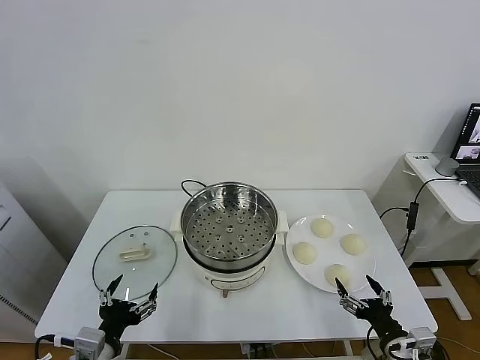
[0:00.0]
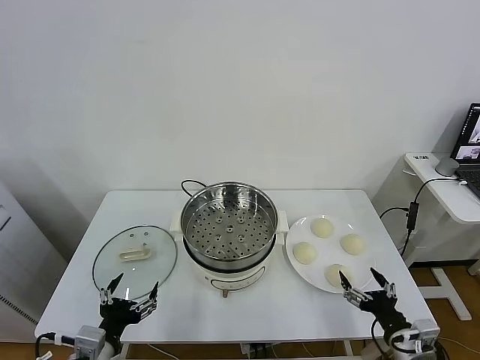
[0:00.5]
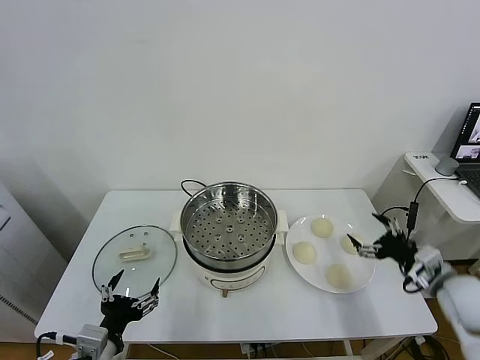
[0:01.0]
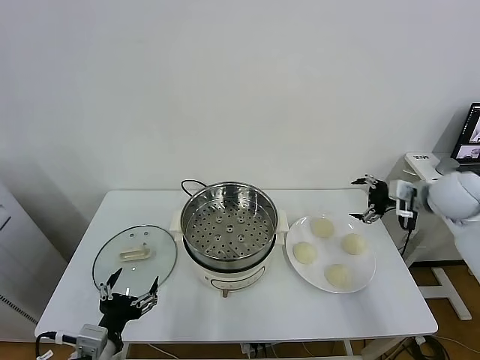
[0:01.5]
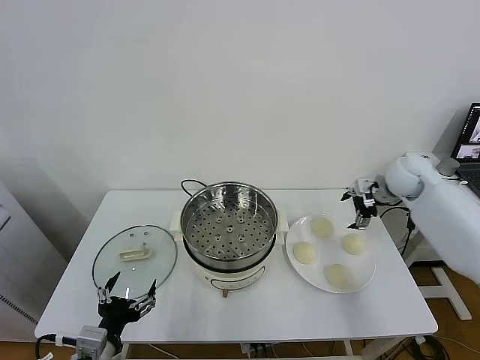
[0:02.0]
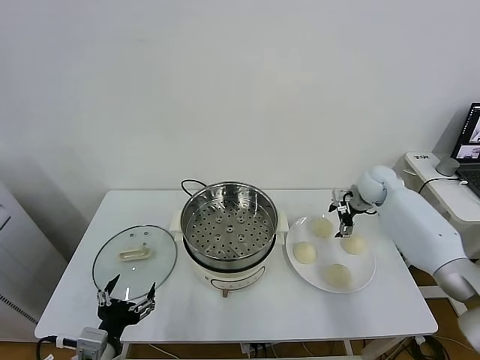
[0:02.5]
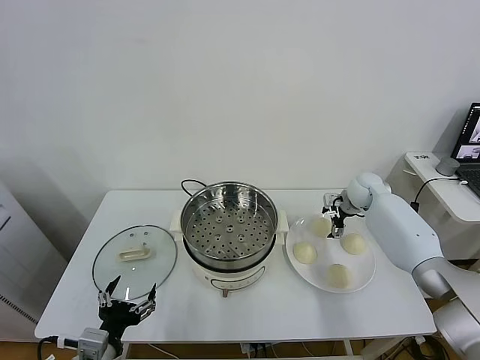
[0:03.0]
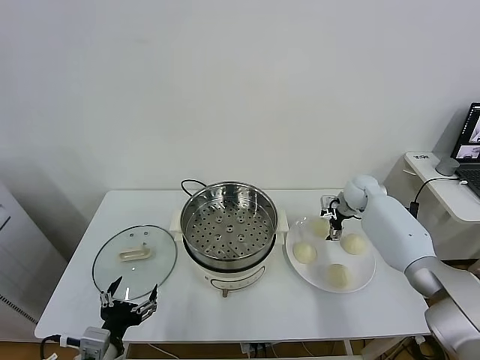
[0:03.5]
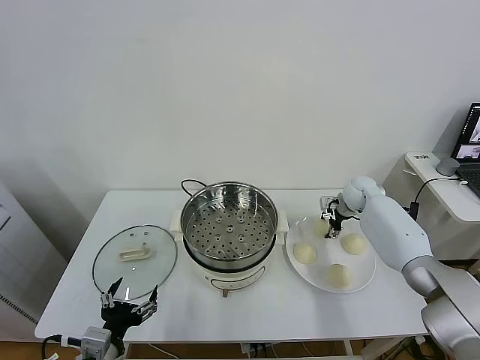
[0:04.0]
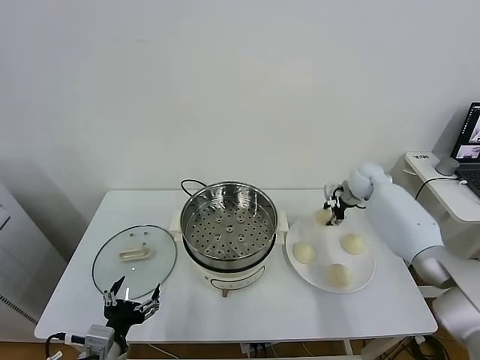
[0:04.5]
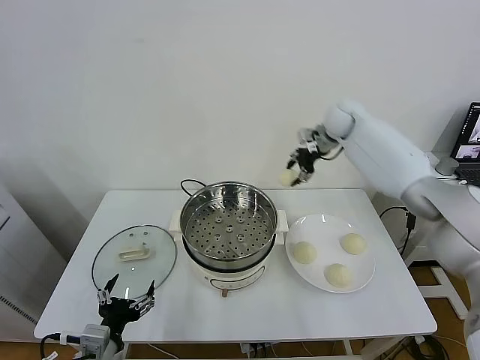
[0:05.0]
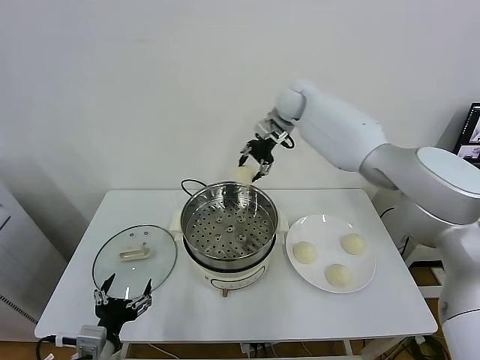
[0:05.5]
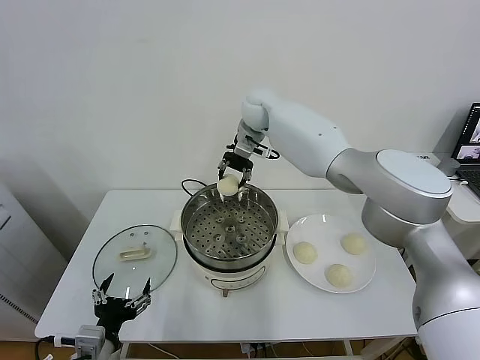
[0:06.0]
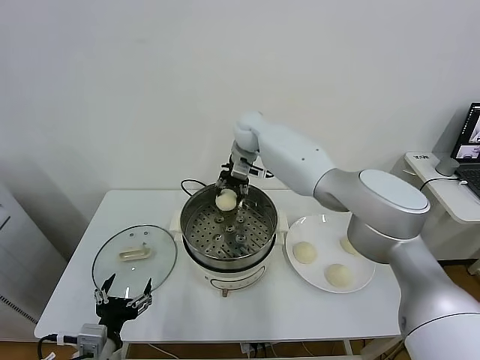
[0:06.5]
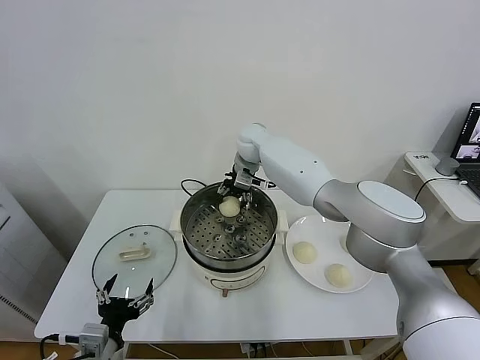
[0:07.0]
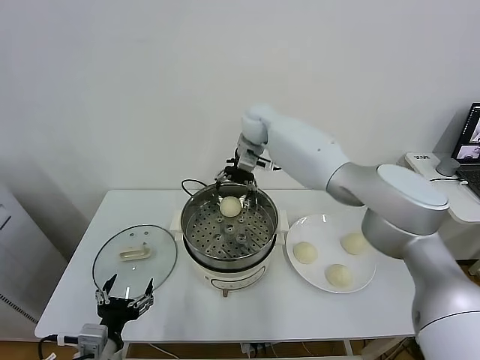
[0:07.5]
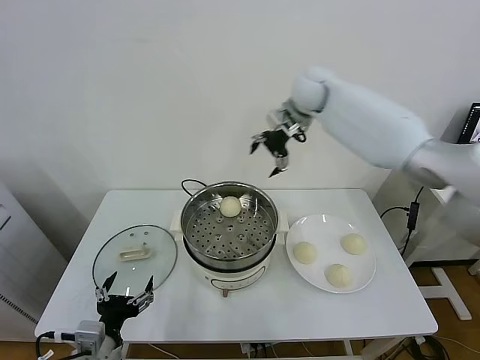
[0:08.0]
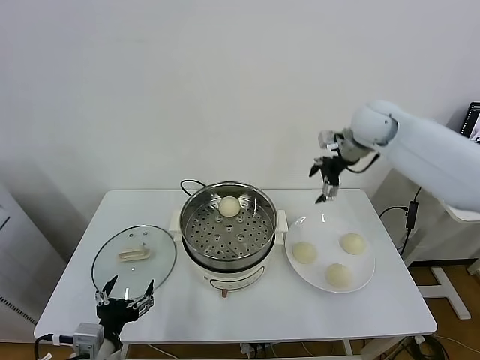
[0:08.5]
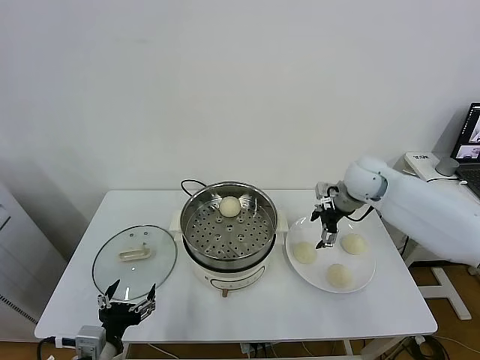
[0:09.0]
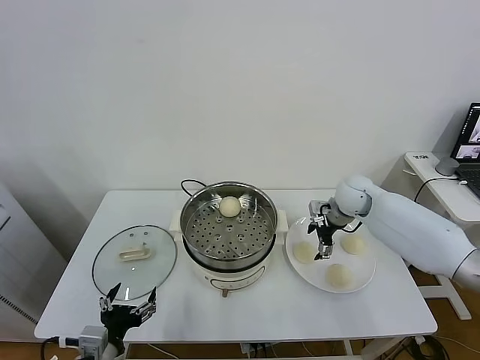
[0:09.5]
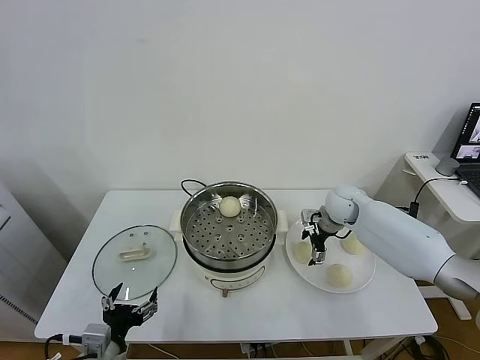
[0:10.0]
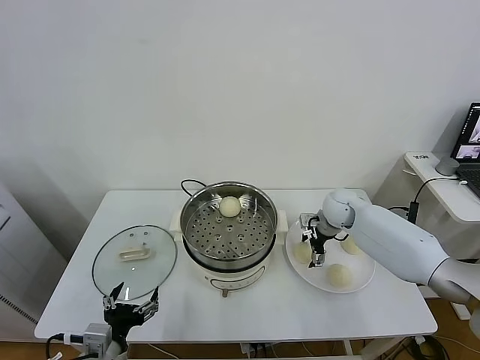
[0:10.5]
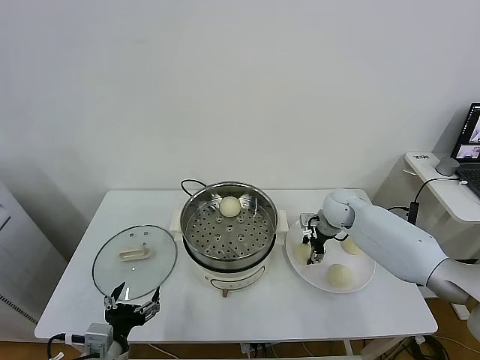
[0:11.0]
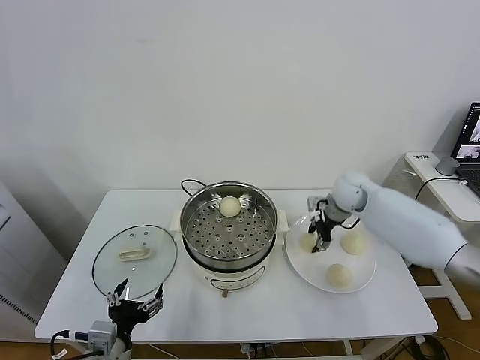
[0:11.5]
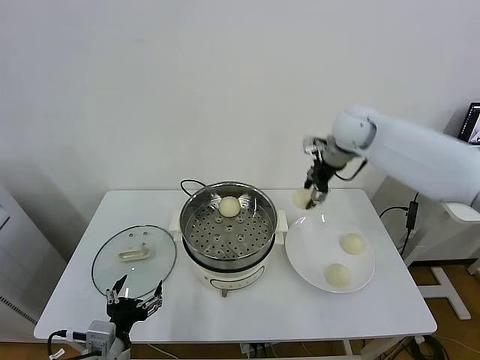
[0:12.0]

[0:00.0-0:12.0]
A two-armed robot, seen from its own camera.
Task of the whole recording: take steamed baozi put them in steamer.
Step, 0.0 to 4.0 s: Grasp the baozi in the plate with right gripper.
Step, 4.5 to 7.0 s: Place the baozi on the steamer with right gripper.
Step, 7.5 to 11.0 s: Grasp the baozi in the plate with right gripper.
2.0 to 4.0 s: The right gripper travels downward by some 10 cm, and closes up.
4.0 to 6.0 s: The right gripper heads to the left and upward, covering roughly 35 cm.
6.0 to 8.0 s: The right gripper is displaced to the right and upward by about 15 cm, and opens its fingers.
8.0 to 10.0 s: The right gripper is displaced downward by roughly 30 cm.
10.0 to 12.0 s: The right gripper shifts some 25 cm upward, and closes.

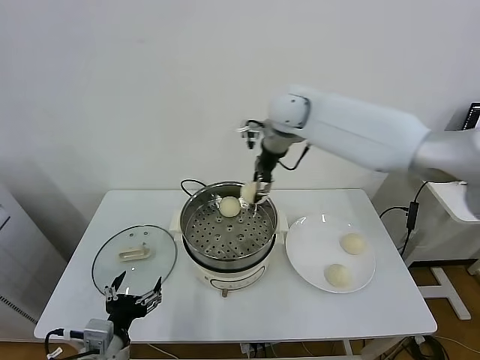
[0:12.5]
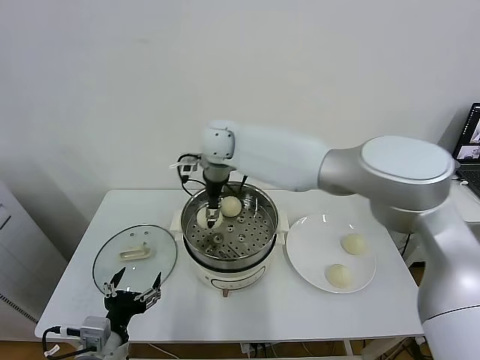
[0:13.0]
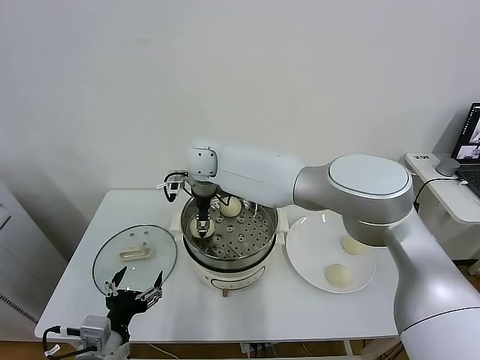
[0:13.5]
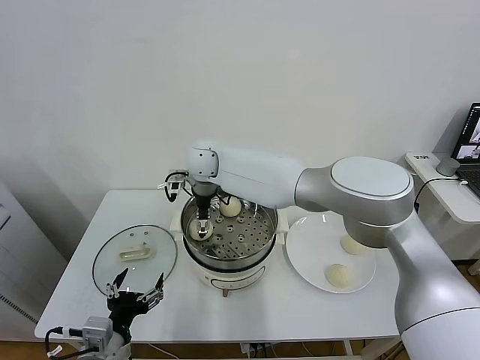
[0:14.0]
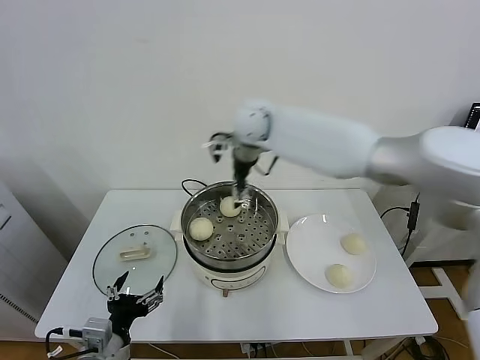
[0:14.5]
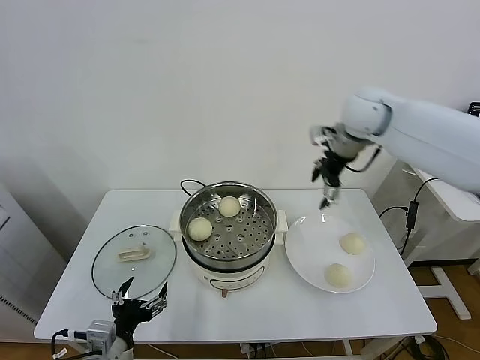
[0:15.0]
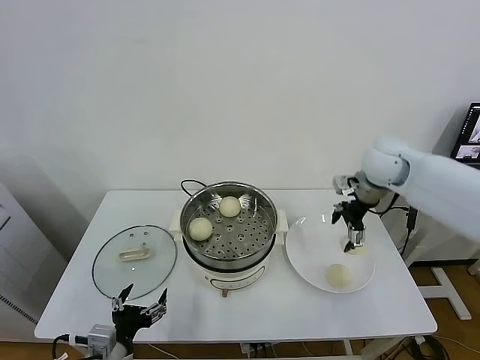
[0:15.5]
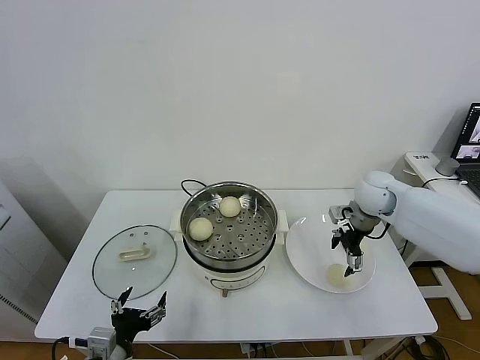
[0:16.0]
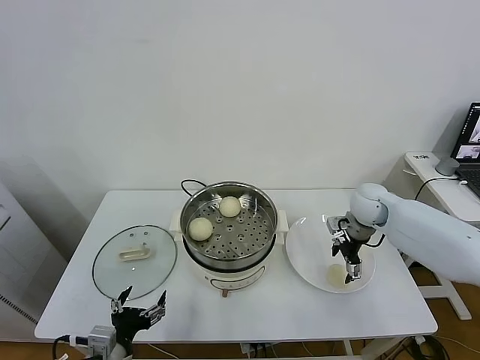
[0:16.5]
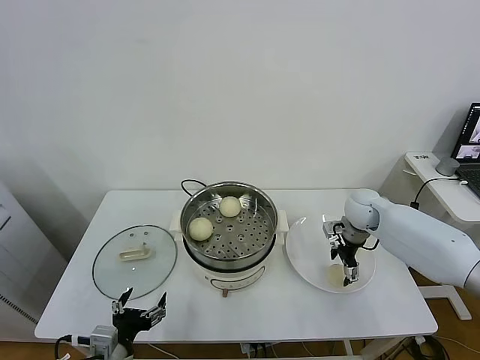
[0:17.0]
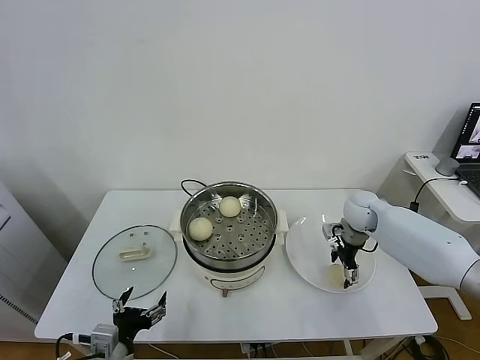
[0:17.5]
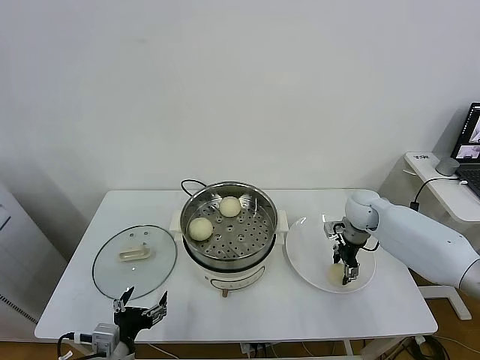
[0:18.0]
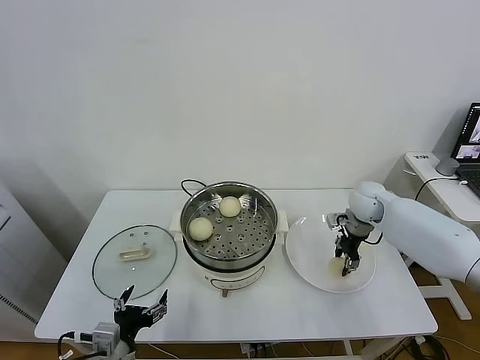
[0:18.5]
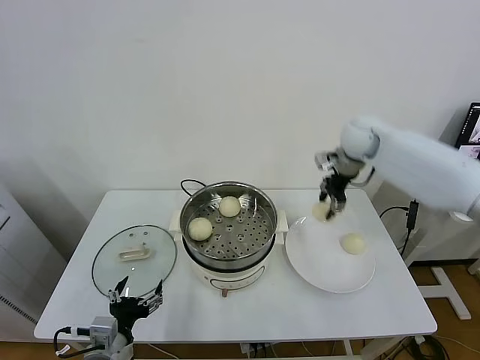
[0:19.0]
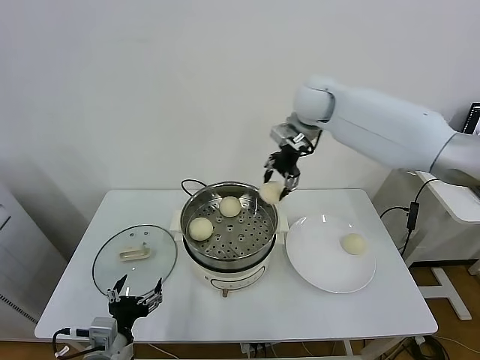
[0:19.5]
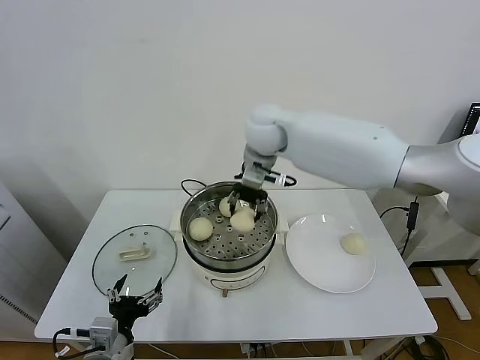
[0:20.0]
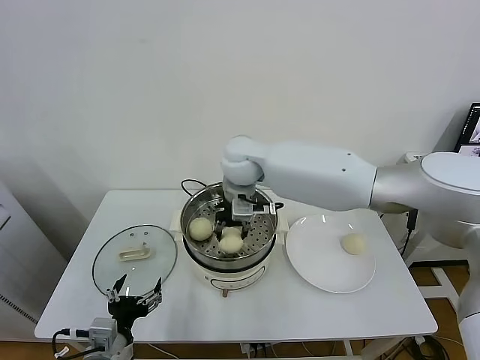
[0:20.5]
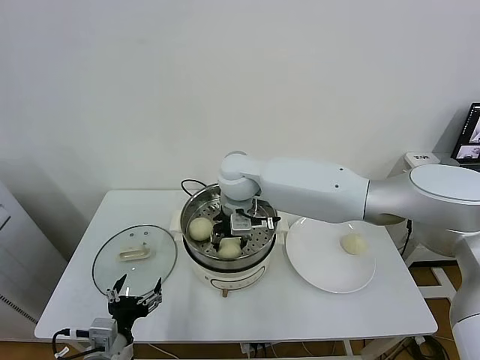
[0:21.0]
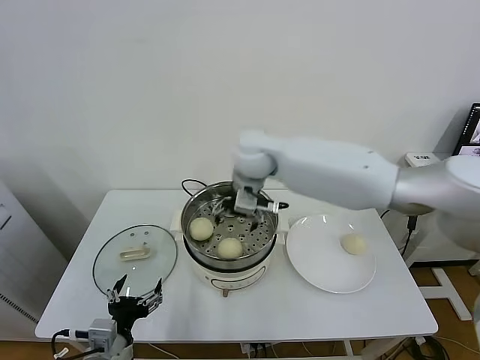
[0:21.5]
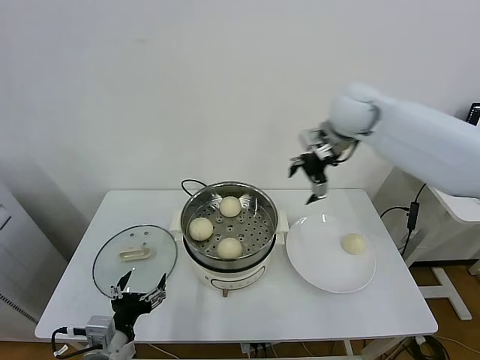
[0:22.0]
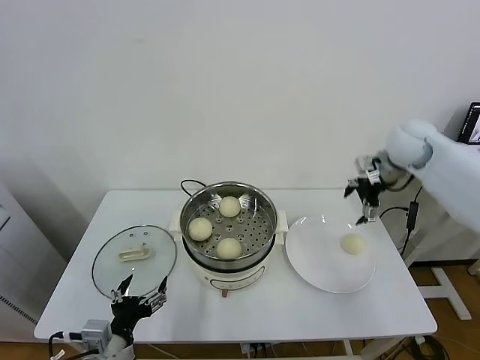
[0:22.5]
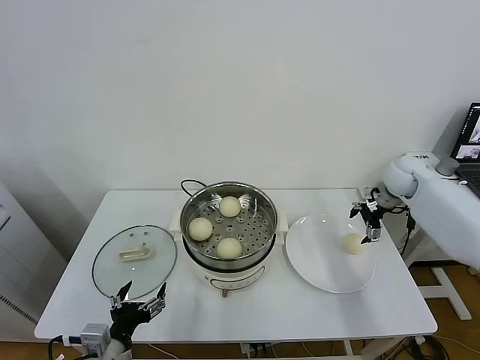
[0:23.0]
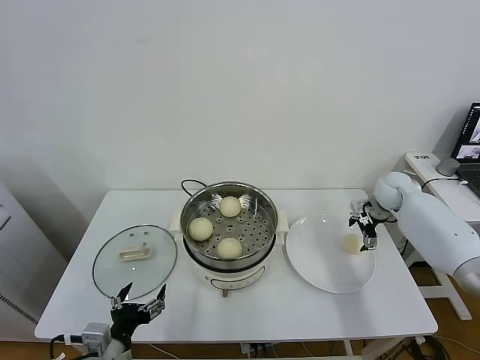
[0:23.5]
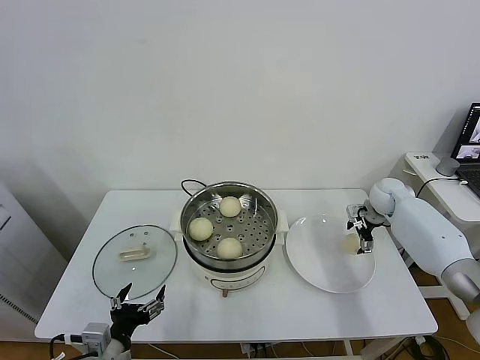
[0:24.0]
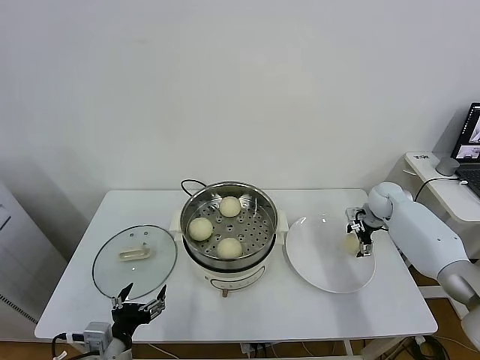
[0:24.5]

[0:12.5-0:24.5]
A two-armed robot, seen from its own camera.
Task of the whole recording: take steamed baozi put them in steamer.
Step, 12.5 to 14.0 s: Place the baozi on the steamer with right gripper.
Step, 14.5 to 18.0 s: Grasp the baozi in the plate with right gripper.
Step, 18.5 to 21.0 s: Place the baozi on the steamer with right gripper.
12.5 to 14.5 s: The right gripper moves about 15 cm to the left and comes back, and opens its fingers.
14.5 to 16.5 s: The right gripper travels to the right and downward by roughly 35 cm.
16.5 to 18.5 s: The right gripper closes up.
18.5 to 20.5 s: The right gripper shifts about 35 cm to the left.
20.5 to 22.5 s: The right gripper heads to the right, covering approximately 40 cm, and opens its fingers.
22.5 to 24.5 s: The right gripper heads downward, covering roughly 20 cm.

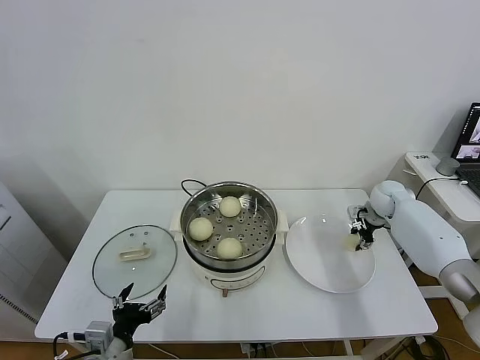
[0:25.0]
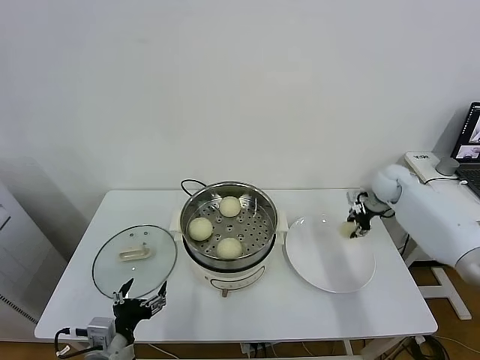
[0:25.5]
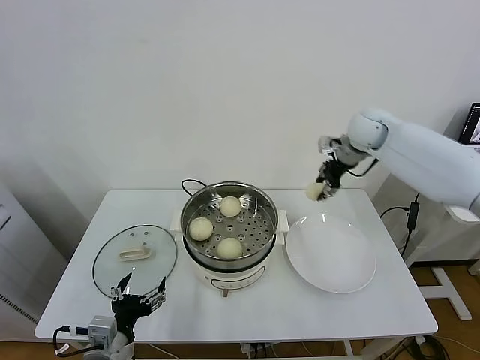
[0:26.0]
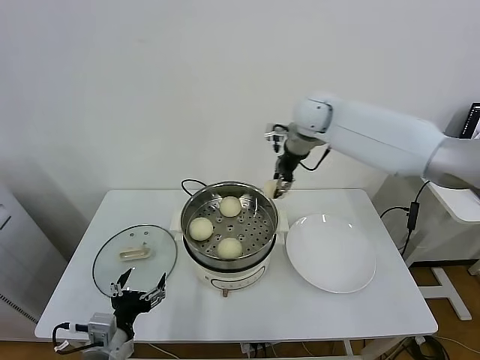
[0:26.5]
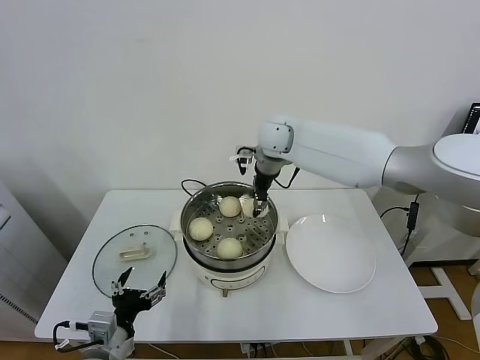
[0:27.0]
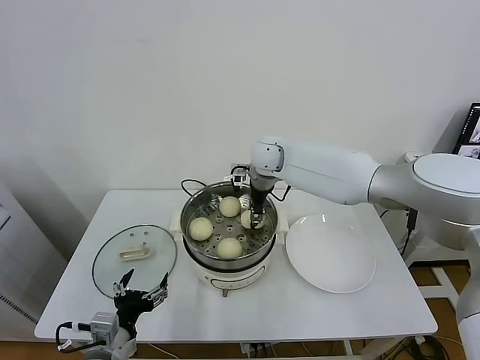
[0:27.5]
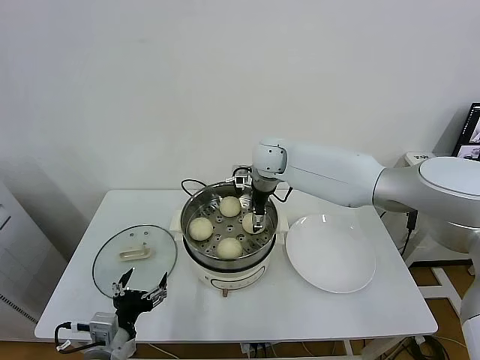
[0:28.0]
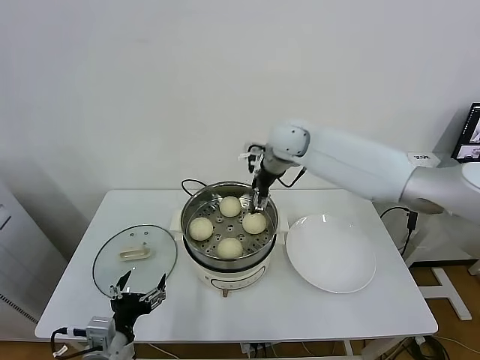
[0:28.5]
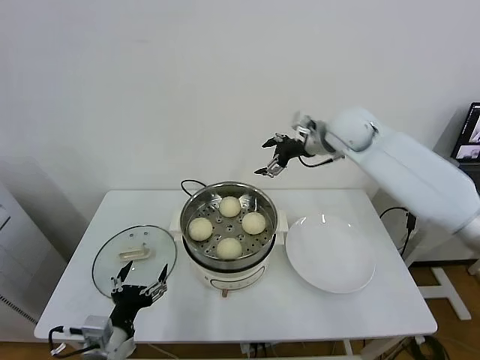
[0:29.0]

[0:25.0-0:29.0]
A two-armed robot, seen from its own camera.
Task of the whole recording: take steamed baozi put them in steamer.
Step, 25.5 to 28.0 s: Place the baozi on the steamer with right gripper.
25.0 to 27.0 s: The right gripper shifts about 40 cm to the left and upward.
27.0 to 29.0 s: The right gripper heads to the right, covering approximately 15 cm, and opens.
